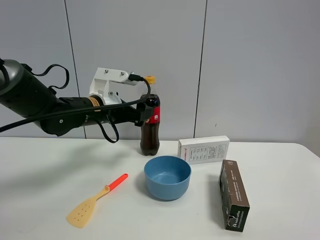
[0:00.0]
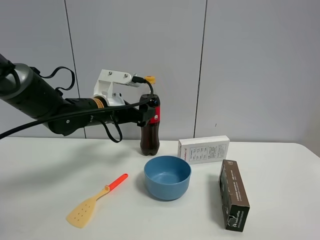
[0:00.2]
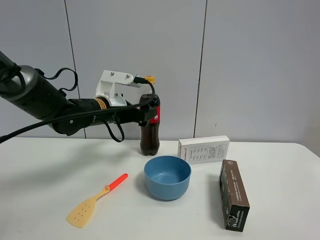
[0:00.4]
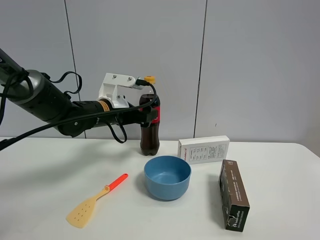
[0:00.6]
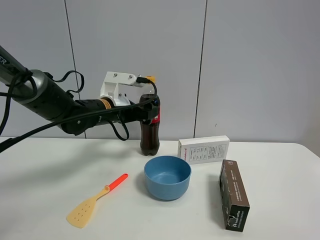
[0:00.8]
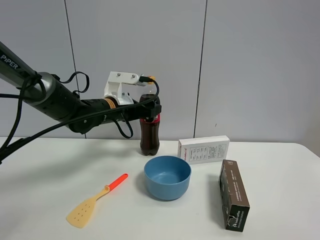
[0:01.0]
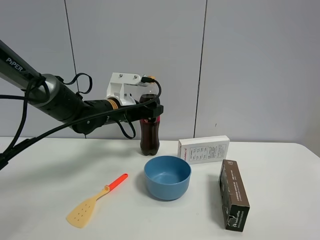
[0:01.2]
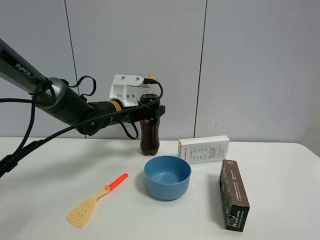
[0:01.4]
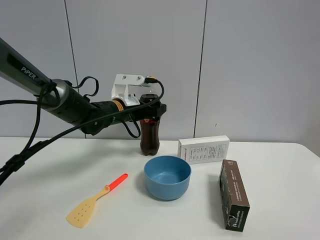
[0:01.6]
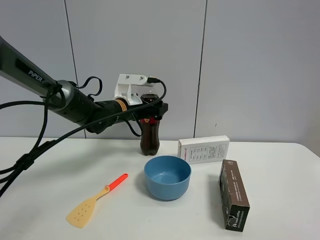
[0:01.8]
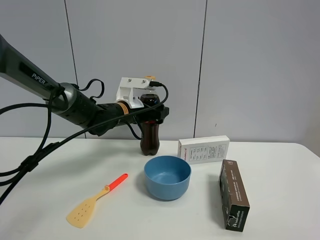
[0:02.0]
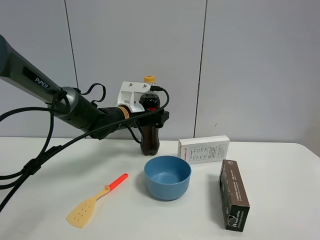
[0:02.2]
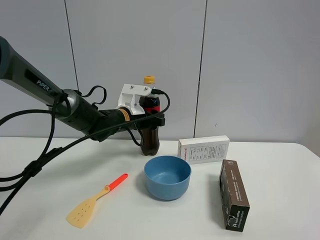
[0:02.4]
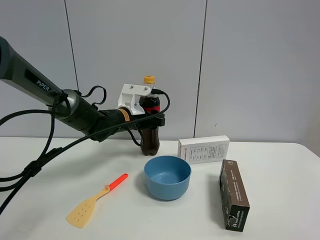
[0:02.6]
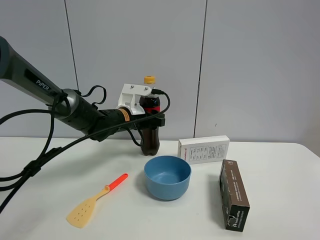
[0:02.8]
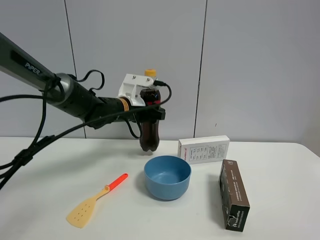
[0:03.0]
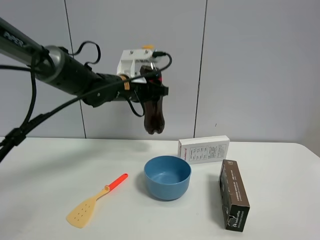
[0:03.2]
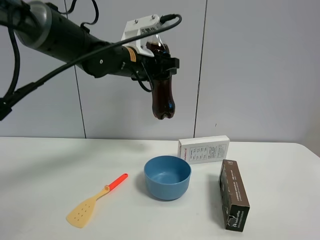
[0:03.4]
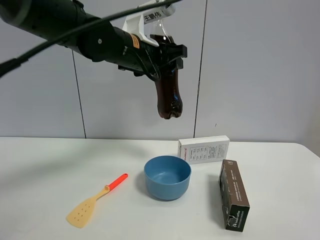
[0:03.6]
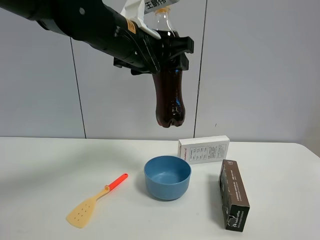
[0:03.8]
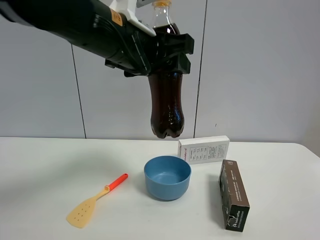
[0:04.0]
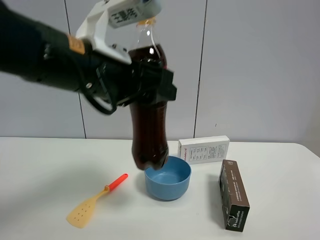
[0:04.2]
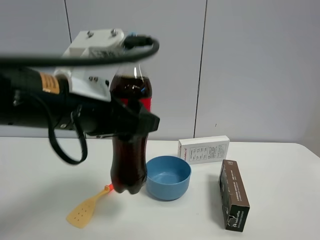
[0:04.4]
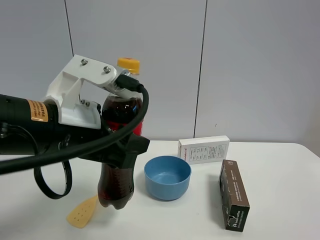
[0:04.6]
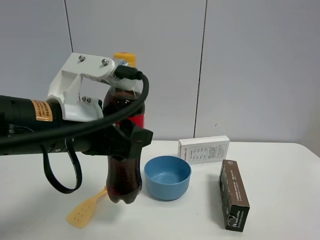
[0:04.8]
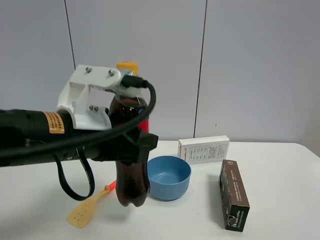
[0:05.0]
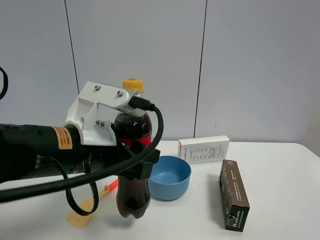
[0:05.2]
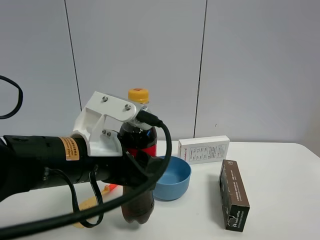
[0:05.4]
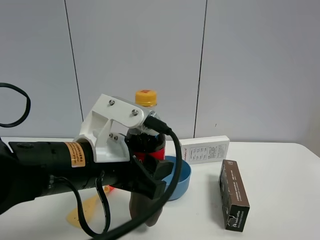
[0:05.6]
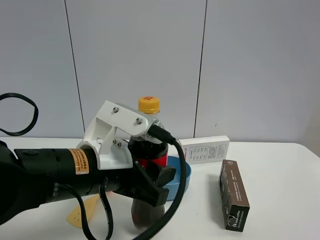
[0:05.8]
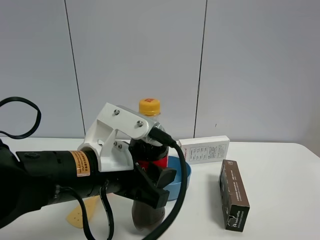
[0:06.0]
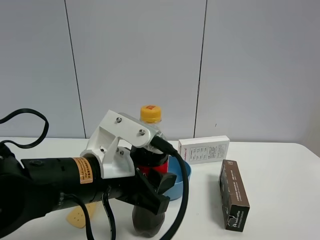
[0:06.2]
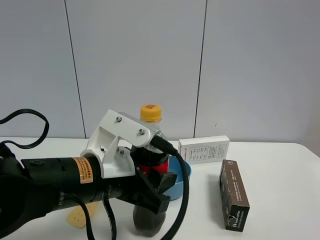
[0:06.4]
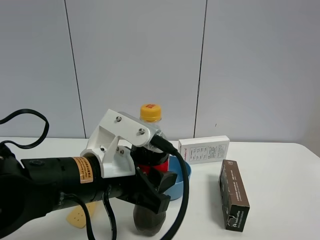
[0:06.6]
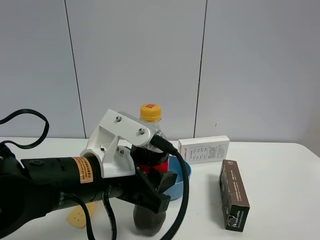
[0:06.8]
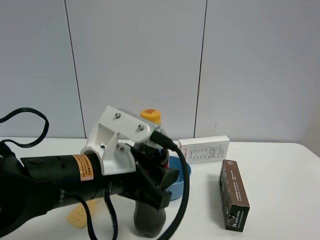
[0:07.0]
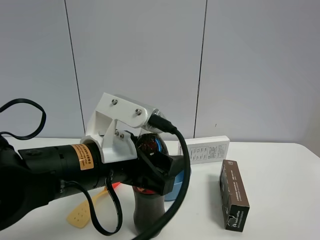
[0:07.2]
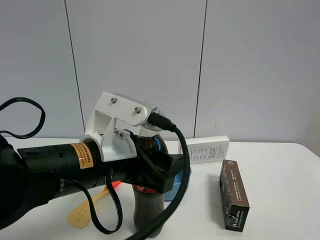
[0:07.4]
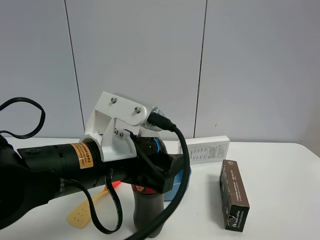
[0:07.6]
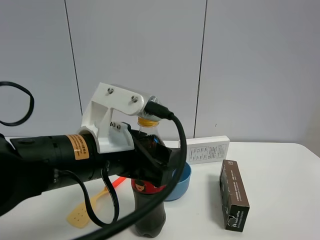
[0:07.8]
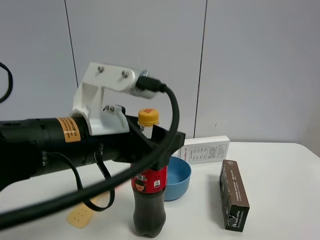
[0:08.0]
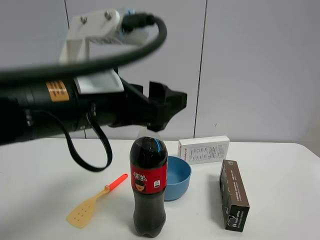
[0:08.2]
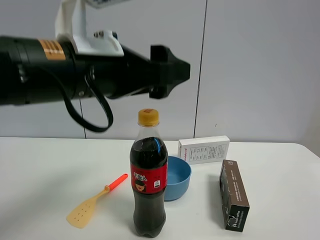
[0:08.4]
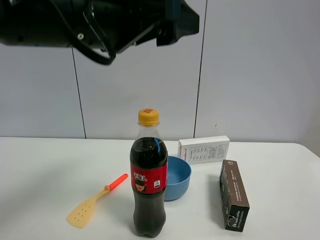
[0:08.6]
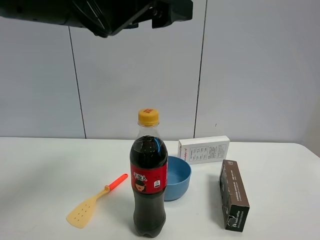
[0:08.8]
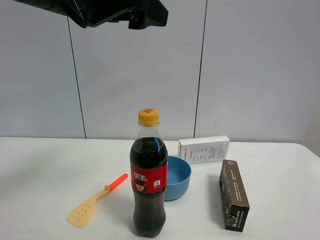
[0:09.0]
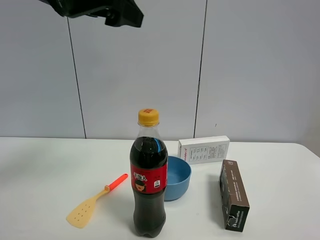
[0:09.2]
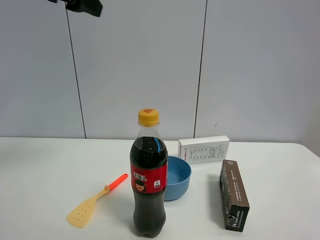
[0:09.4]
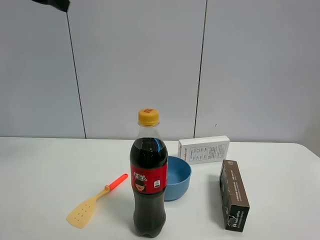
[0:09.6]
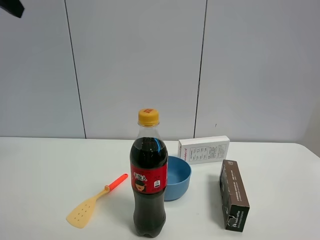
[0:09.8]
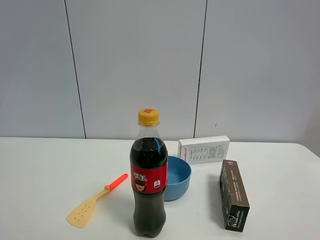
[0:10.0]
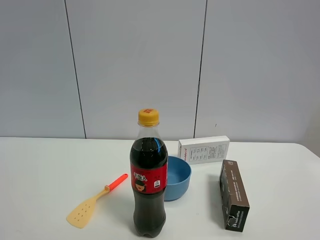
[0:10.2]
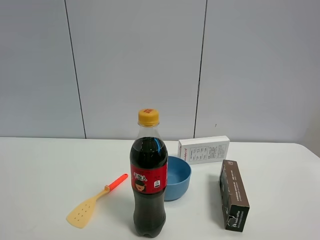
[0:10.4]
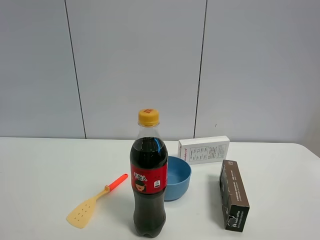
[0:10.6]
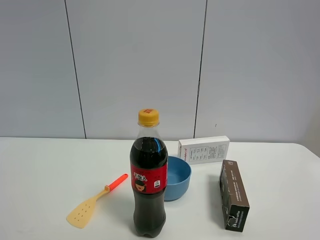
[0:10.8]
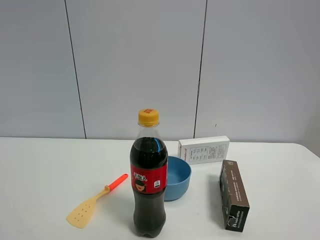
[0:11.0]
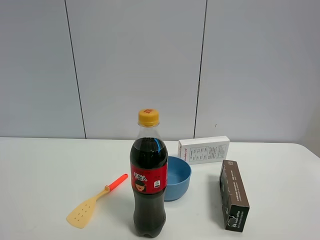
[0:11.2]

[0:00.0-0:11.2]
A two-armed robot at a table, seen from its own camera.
Task of the whole recording: the gripper move the object.
Step, 0:00.0 to 0:02.6: Grasp the coke with the left gripper.
Step, 0:02.8 to 0:08.4: Place the coke on the table with the left gripper.
0:00.0 to 0:01.6: The left gripper shifts about 5 cm forward.
0:01.6 to 0:03.2: The left gripper travels upward by some 5 cm, and closes its fingers.
0:03.2 to 0:04.8: The left gripper travels backward by roughly 25 cm.
0:04.8 to 0:06.4: The left gripper travels downward by some 5 cm.
0:06.4 to 0:08.0: The left gripper travels upward by some 5 cm, and opens.
0:08.0 to 0:09.6: The left gripper moves upward, to the left and forward, about 30 cm, and opens.

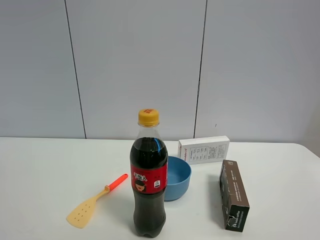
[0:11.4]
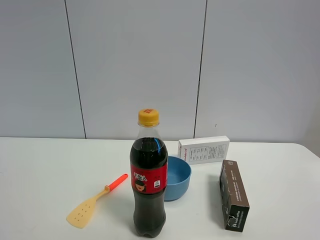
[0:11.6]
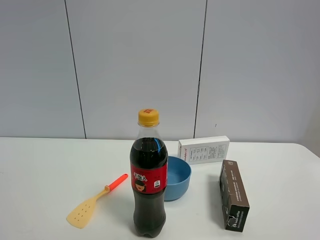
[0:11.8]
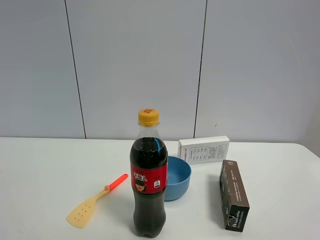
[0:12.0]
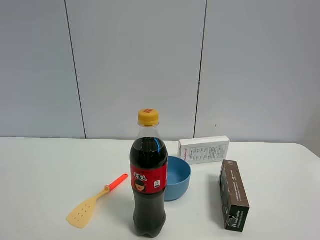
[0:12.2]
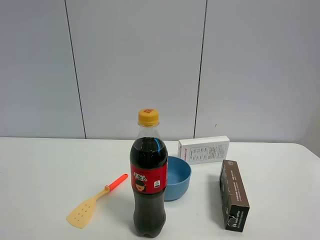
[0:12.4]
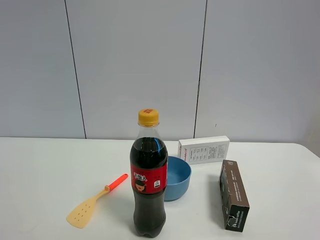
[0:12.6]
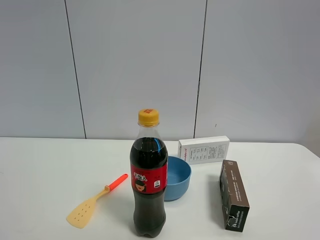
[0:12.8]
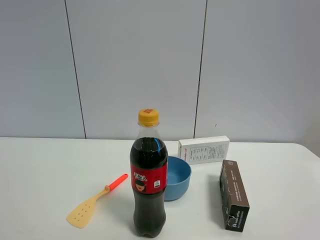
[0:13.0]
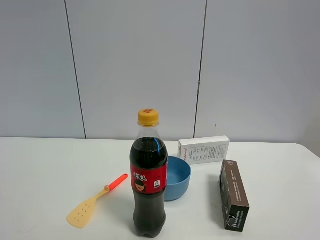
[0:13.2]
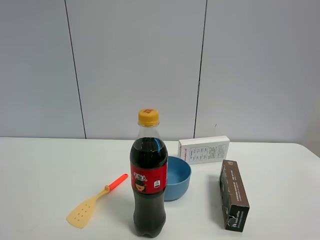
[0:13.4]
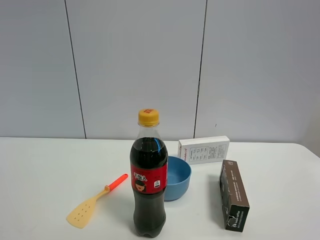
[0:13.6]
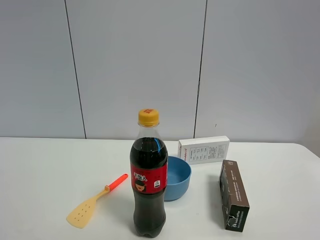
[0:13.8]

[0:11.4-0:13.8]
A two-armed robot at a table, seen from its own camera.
Task of the whole recording: the gripper move the object.
0:12.6 to 0:13.8: The two grippers keep their place.

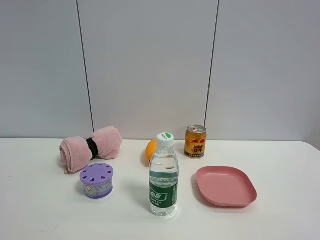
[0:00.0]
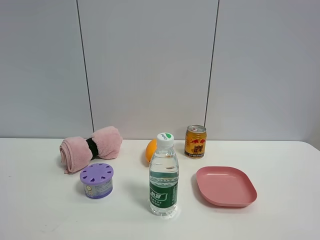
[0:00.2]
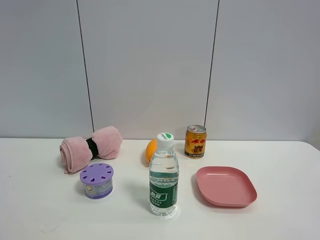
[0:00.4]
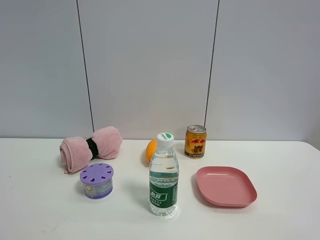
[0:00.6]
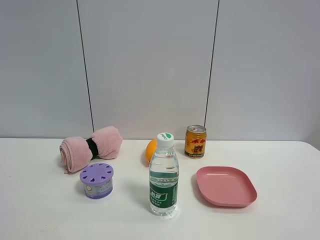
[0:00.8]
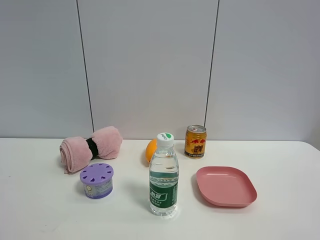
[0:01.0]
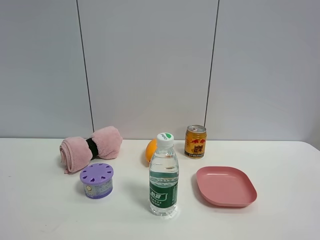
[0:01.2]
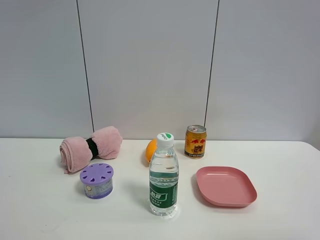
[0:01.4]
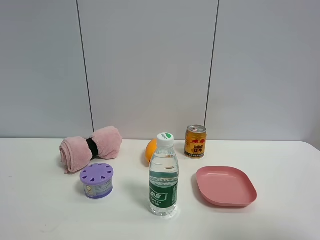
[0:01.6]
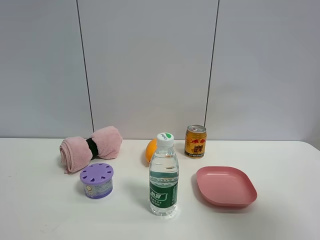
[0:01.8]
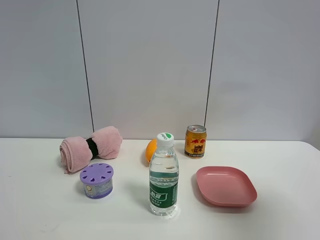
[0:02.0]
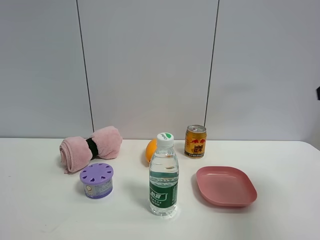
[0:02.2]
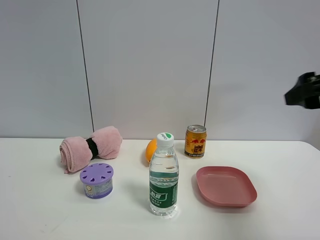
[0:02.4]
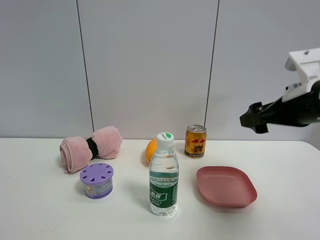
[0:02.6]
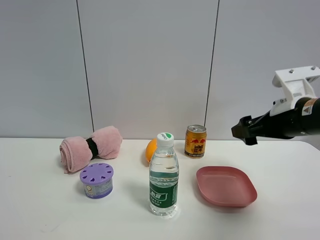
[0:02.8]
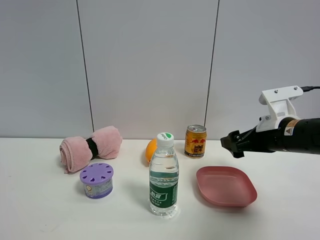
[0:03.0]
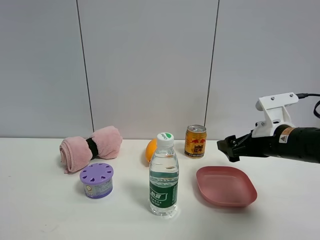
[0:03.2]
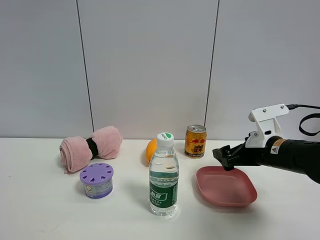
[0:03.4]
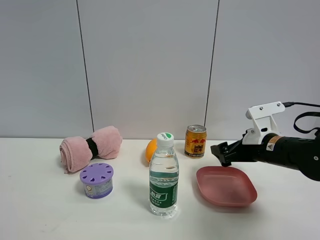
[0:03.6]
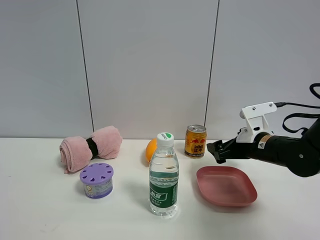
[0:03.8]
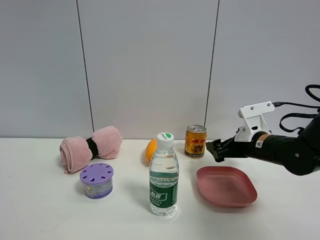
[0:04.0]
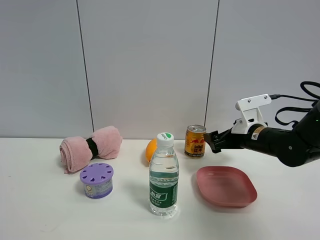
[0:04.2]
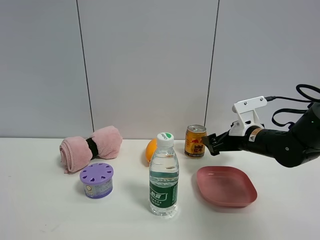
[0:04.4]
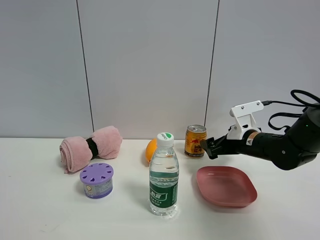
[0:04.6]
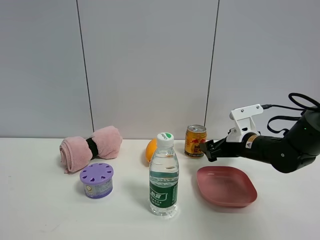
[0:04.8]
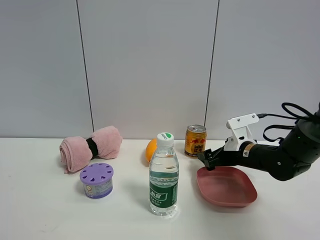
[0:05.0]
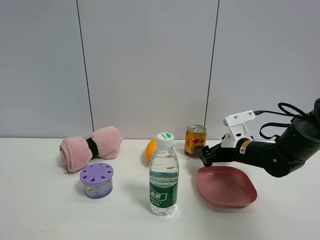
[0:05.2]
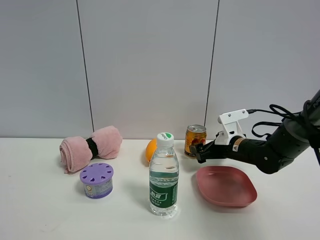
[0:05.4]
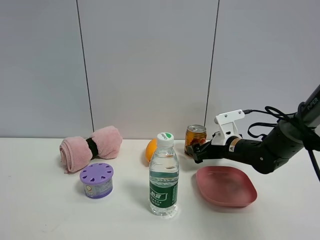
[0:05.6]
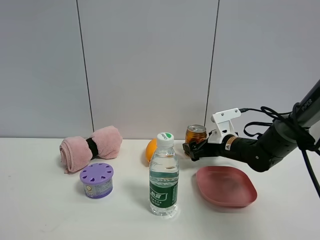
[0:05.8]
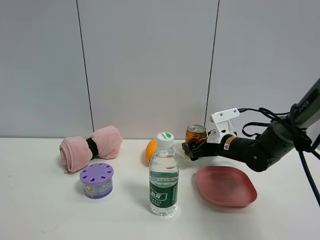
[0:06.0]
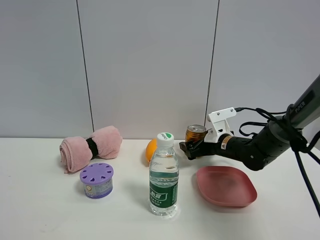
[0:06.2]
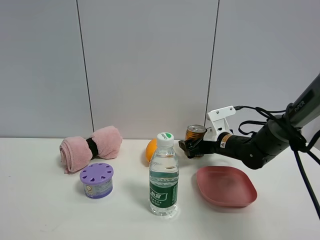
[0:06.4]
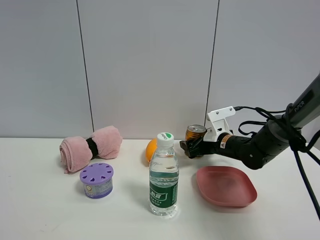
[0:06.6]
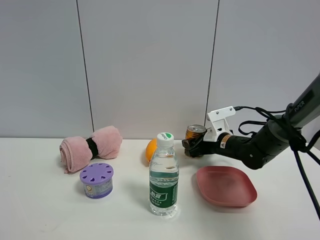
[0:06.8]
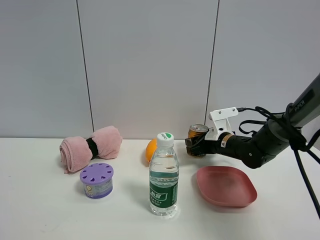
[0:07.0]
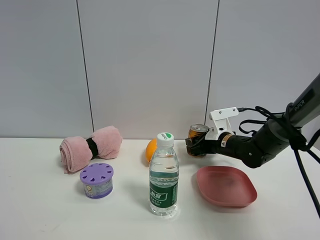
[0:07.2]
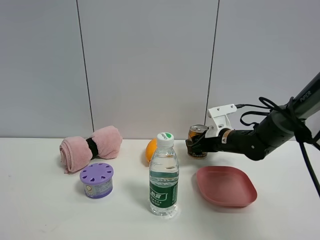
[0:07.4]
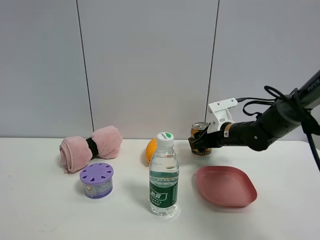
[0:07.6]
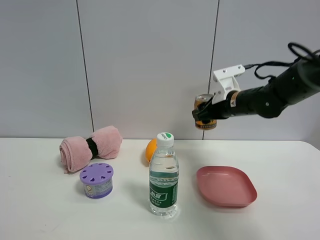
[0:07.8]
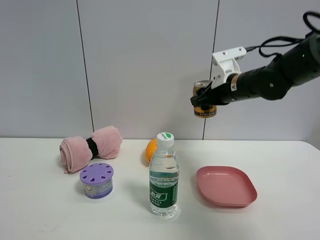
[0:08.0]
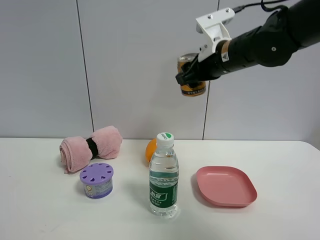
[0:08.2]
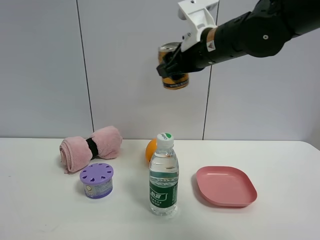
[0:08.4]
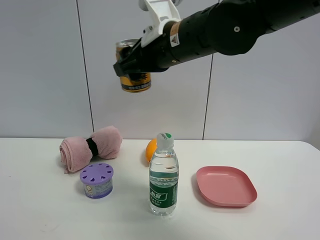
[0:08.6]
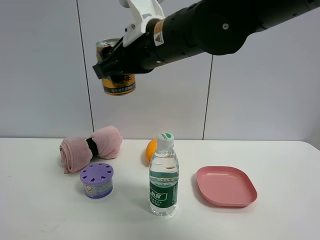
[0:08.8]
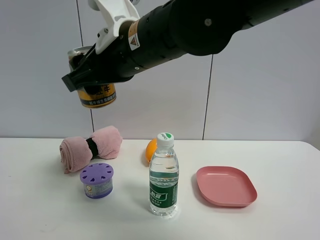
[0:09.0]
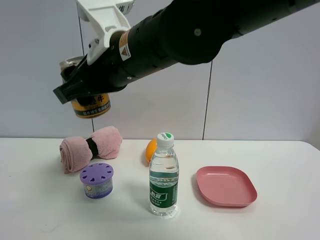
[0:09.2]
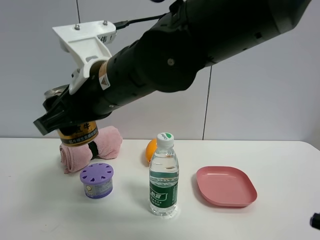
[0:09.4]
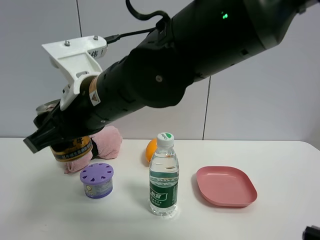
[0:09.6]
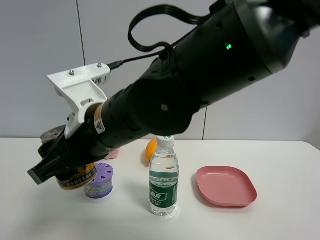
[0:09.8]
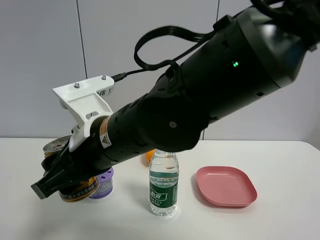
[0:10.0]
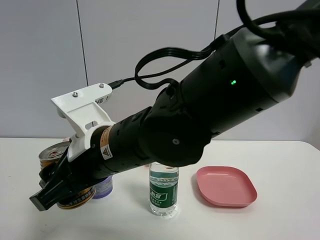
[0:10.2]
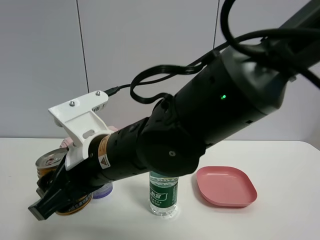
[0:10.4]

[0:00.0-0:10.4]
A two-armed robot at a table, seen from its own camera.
Task of the whole recording: the gripper move the object.
Step, 0:00.0 to 0:06.8: Grasp the red bull with the right gripper.
0:01.4 to 0:03.0: The right gripper travels forward and downward by about 35 cm.
0:03.0 to 0:04.4: The right gripper heads forward, covering approximately 10 cm.
0:04.4 to 0:06.0: The right gripper moves approximately 5 cm.
0:06.0 to 0:07.4: The right gripper closes its fingers.
0:07.4 to 0:09.0: The right gripper goes some 35 cm upward, to the left and backward.
0:09.0 to 0:10.4: The right gripper travels downward by roughly 15 cm.
